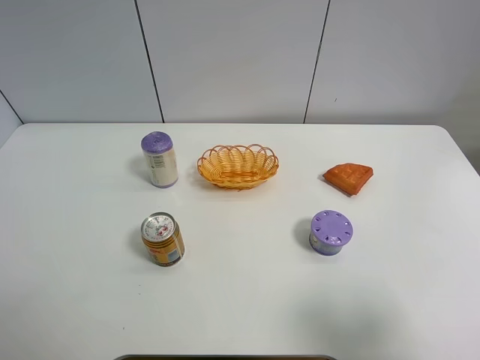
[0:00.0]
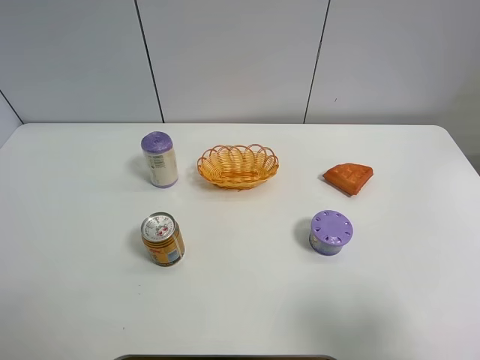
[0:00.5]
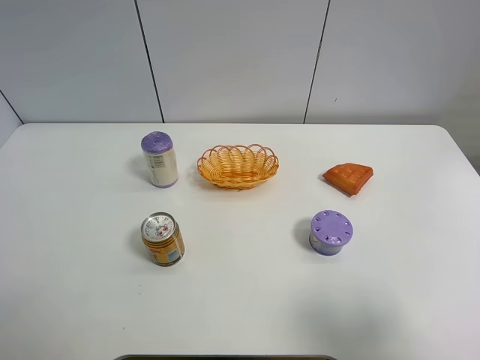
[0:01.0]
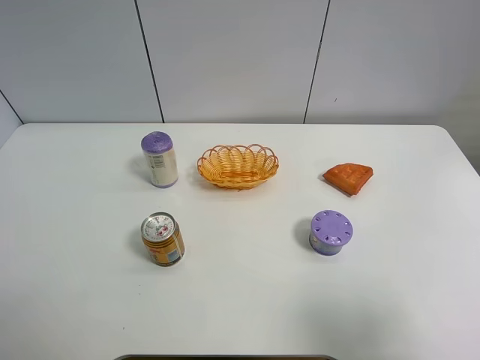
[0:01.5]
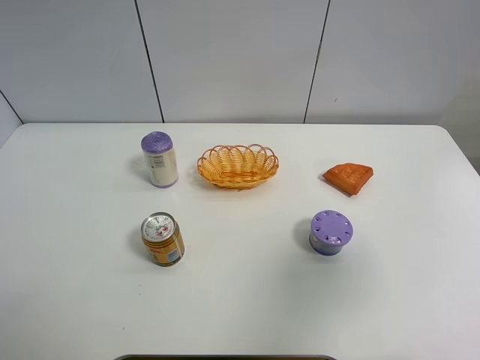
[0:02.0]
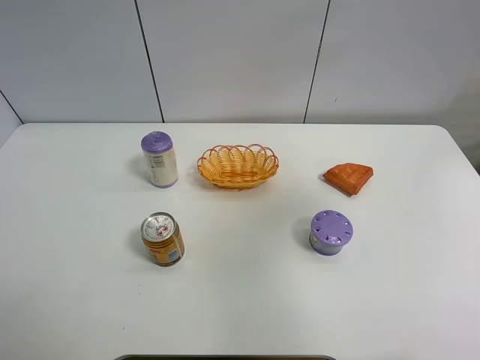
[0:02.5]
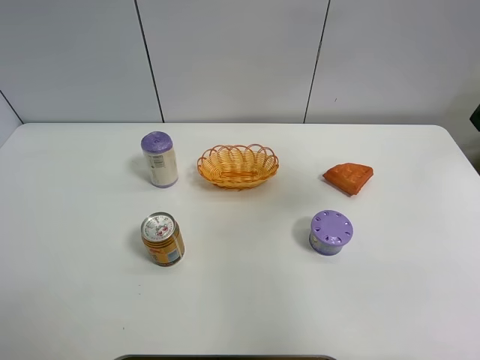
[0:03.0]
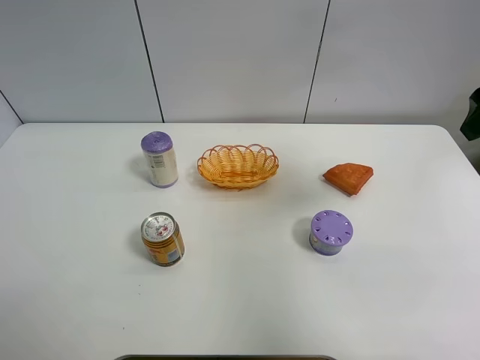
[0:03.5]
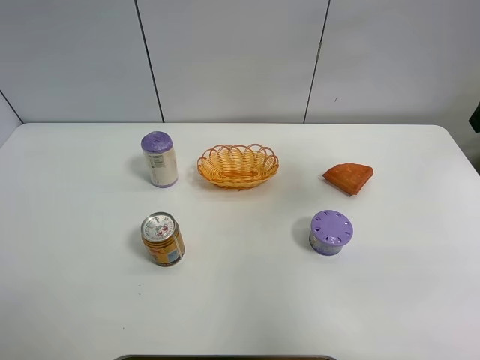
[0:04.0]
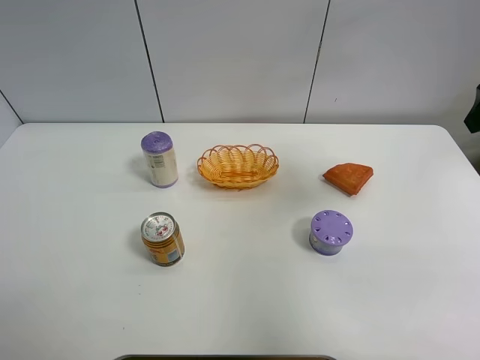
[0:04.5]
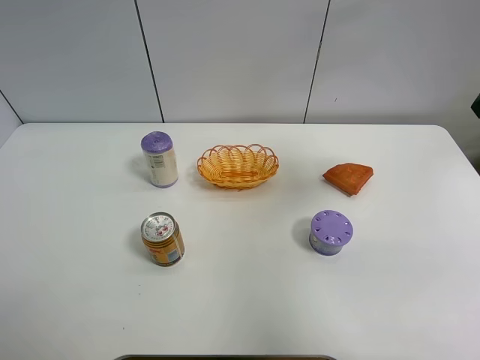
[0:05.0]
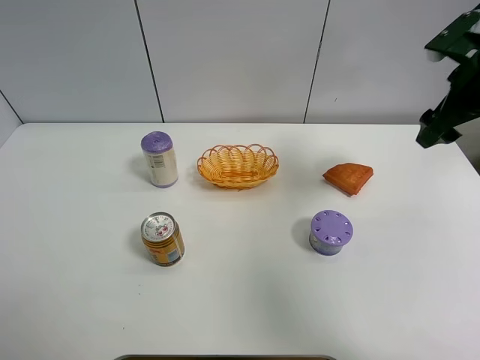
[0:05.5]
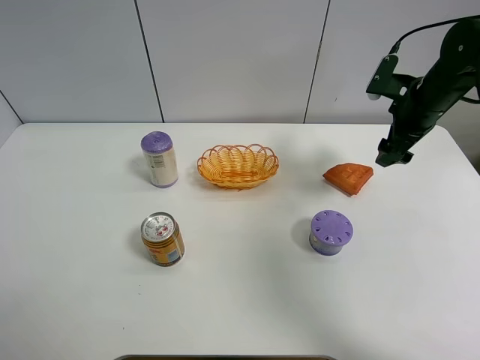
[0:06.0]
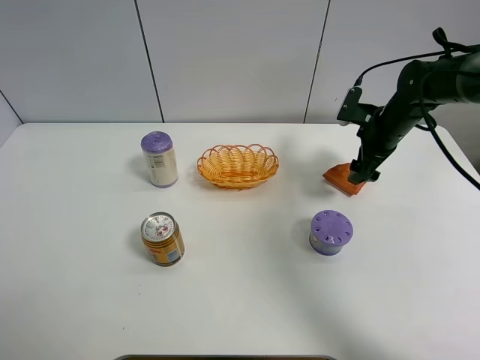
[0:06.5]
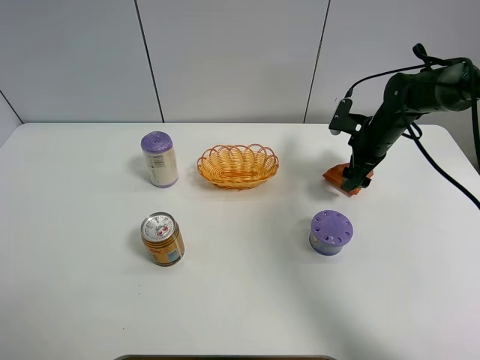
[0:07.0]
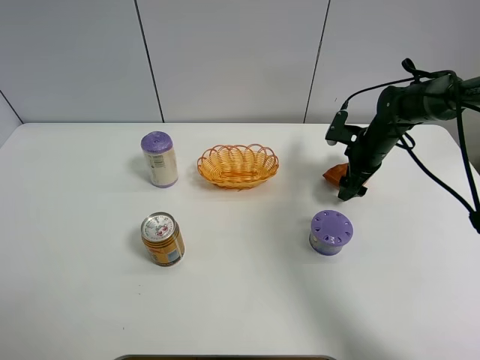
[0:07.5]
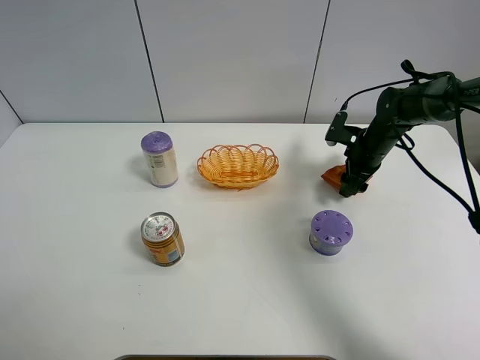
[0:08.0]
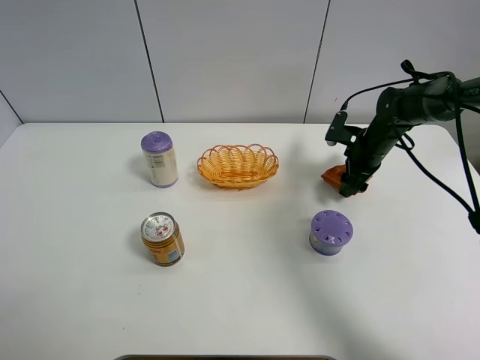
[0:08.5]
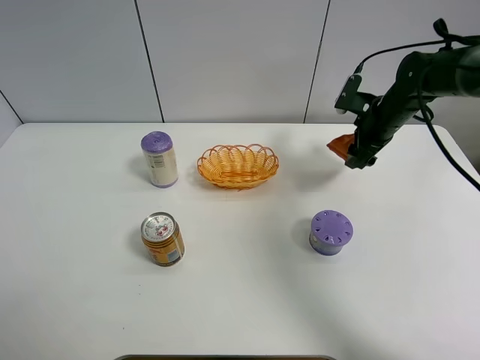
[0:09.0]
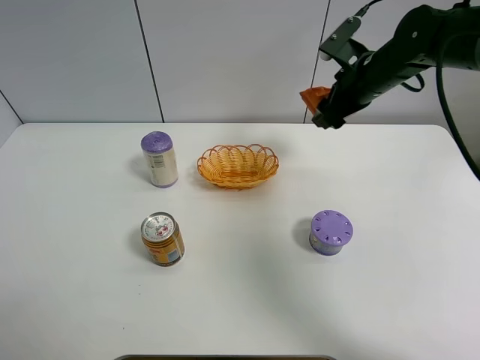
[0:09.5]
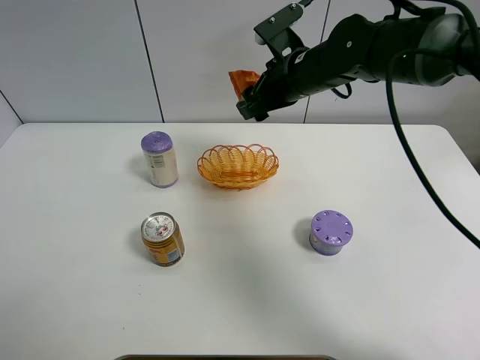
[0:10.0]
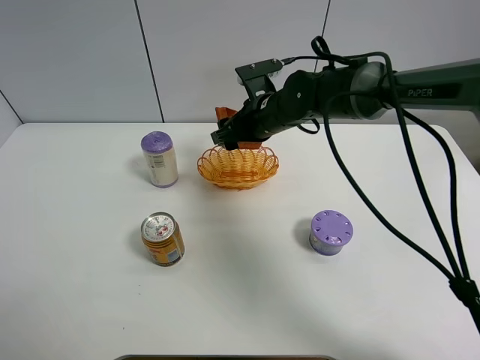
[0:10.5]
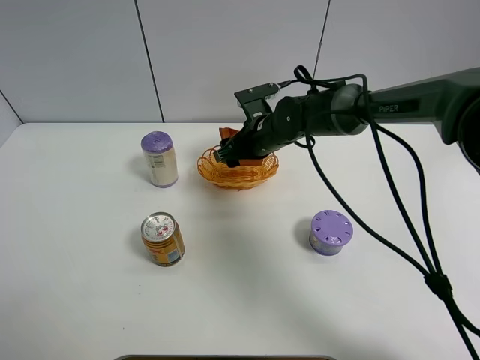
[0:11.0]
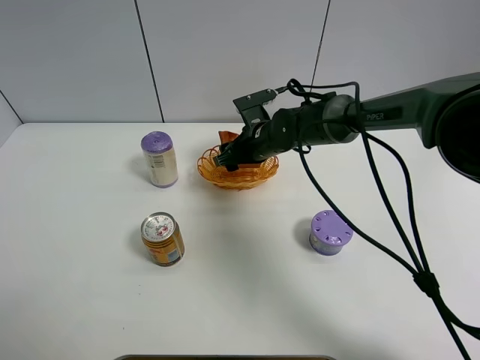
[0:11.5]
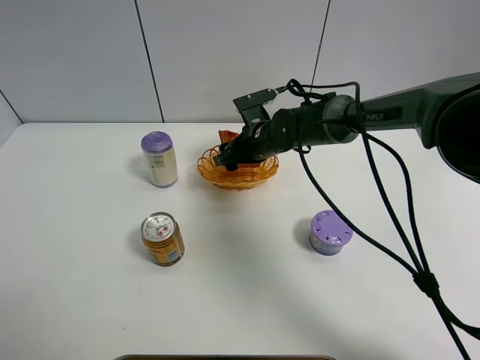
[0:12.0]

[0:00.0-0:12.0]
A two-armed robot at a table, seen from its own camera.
Task of the whole recording: Put the bakery in the basket.
Step, 0:00.0 to 0:08.0: Grasp the bread with right gripper.
0:00.0 to 0:02.0: The right gripper goes roughly 10 cm upward and forward.
0:02.0 to 0:04.0: The right gripper goes roughly 20 cm forward.
0:04.0 to 0:06.0: The right gripper moves downward and forward, roughly 20 cm.
0:06.0 to 0:08.0: The right gripper travels downward by approximately 10 cm, and closes its fingers.
0:08.0 to 0:10.0: The right gripper heads to the left and upward, covering approximately 25 cm.
0:10.0 to 0:12.0: The right gripper travels downward by roughly 15 cm.

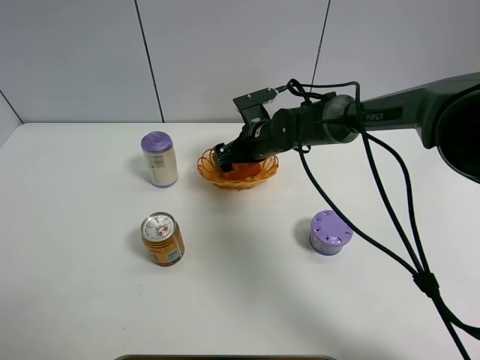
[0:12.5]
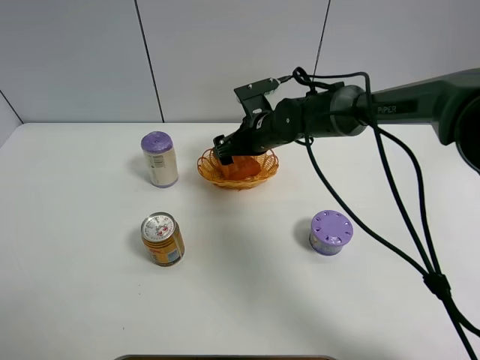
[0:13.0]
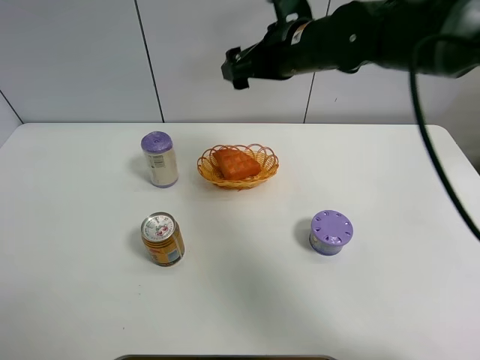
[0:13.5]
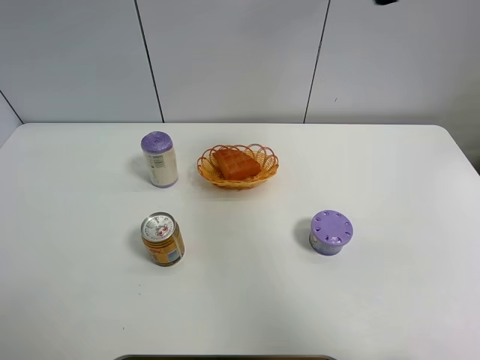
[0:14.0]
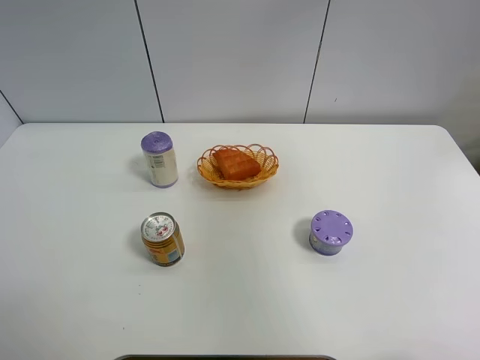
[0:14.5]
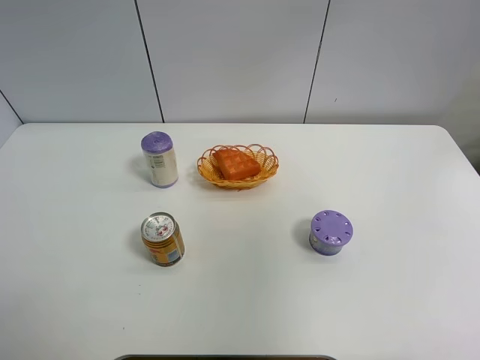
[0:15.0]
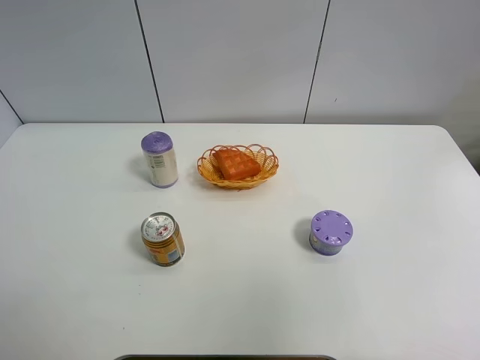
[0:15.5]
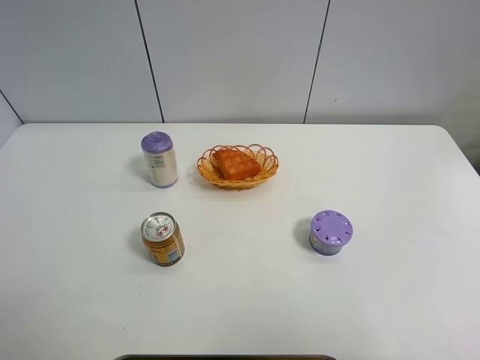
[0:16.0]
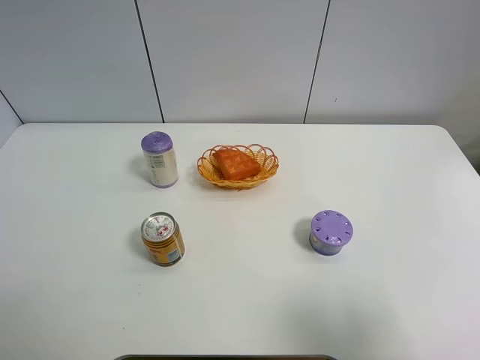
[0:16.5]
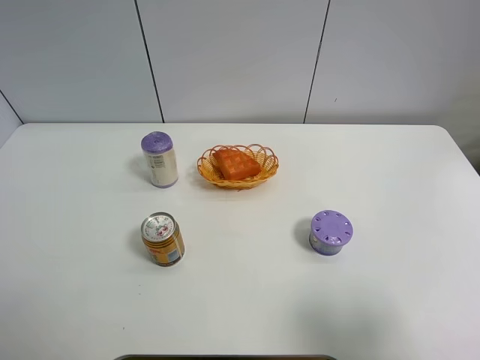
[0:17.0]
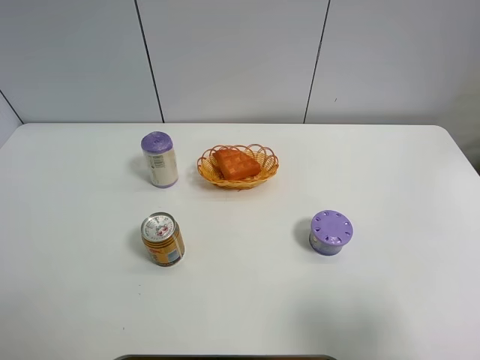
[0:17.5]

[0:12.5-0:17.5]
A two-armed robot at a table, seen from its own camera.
Task of the whole recording: Put the bakery in the basket.
0:12.5 to 0:15.0: The right gripper shifts roughly 60 cm upward, backward and to the right.
0:15.0 to 0:17.5: The right gripper heads downward, covering approximately 25 cm.
